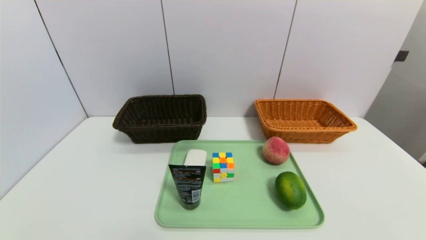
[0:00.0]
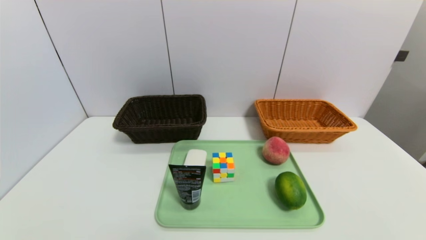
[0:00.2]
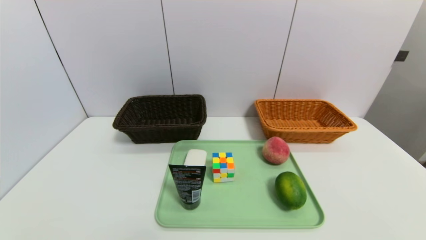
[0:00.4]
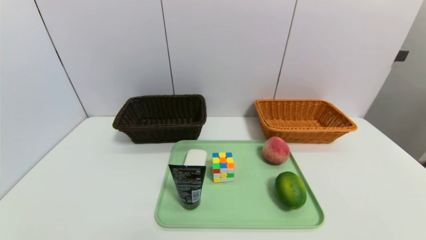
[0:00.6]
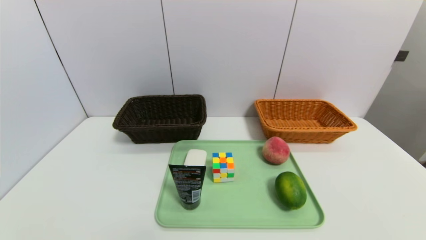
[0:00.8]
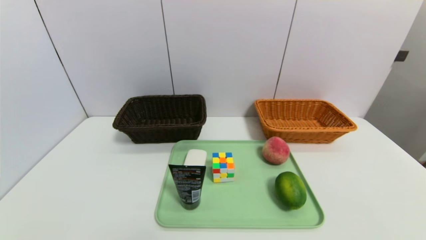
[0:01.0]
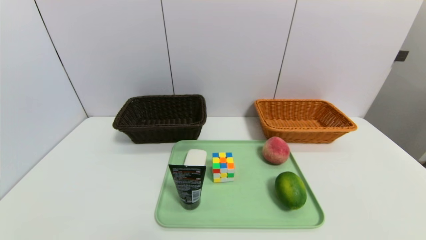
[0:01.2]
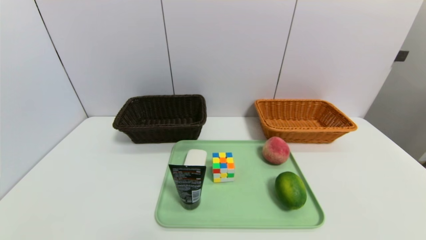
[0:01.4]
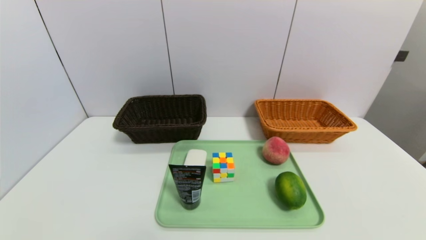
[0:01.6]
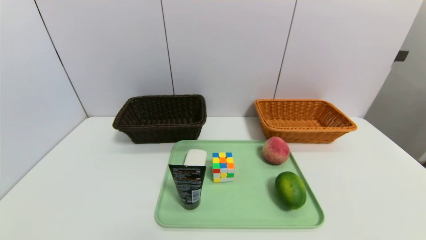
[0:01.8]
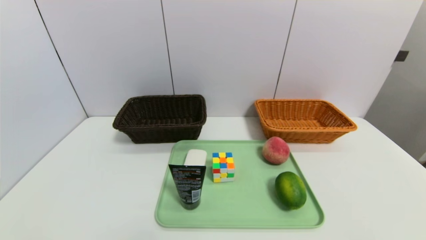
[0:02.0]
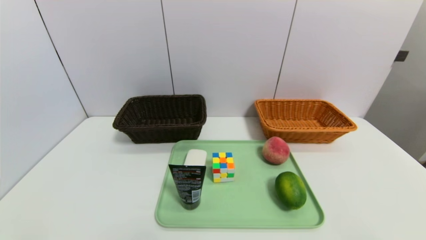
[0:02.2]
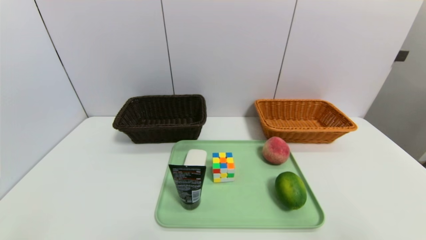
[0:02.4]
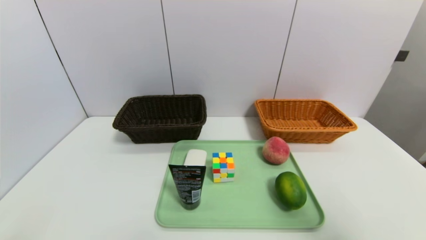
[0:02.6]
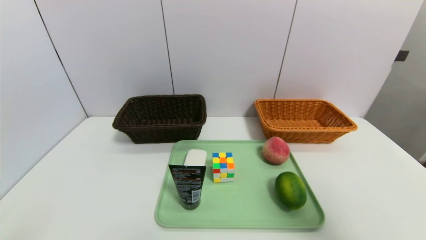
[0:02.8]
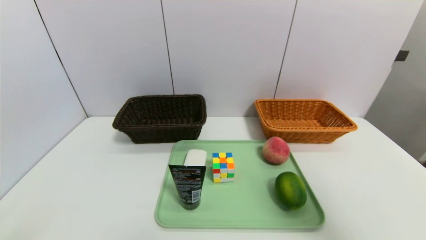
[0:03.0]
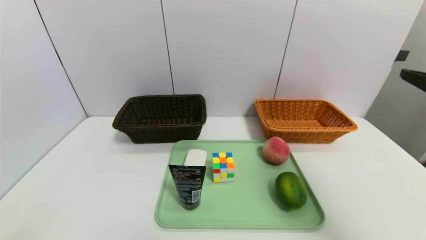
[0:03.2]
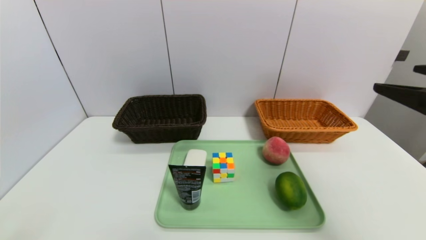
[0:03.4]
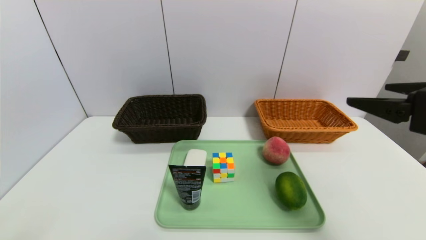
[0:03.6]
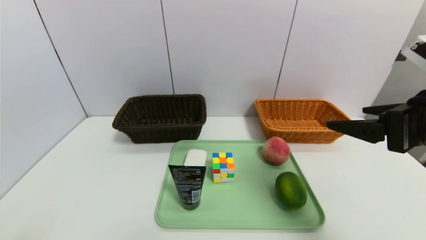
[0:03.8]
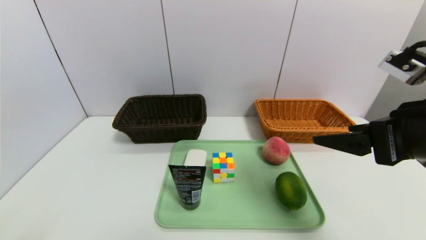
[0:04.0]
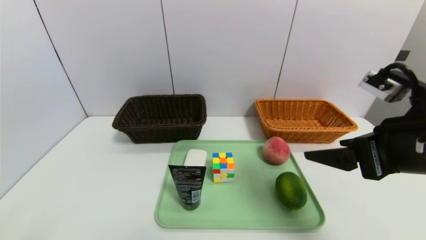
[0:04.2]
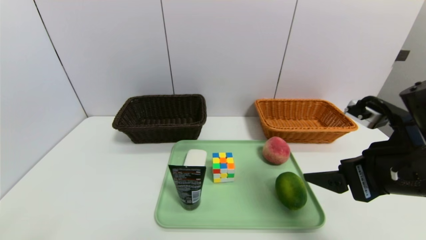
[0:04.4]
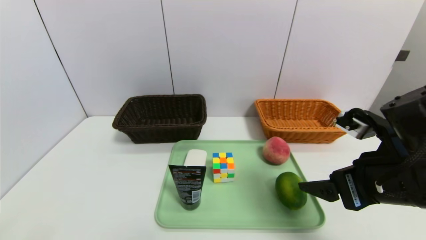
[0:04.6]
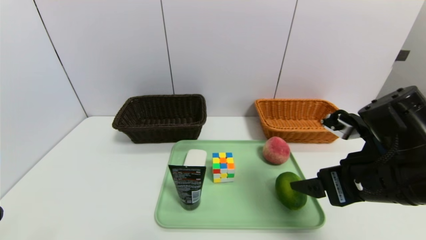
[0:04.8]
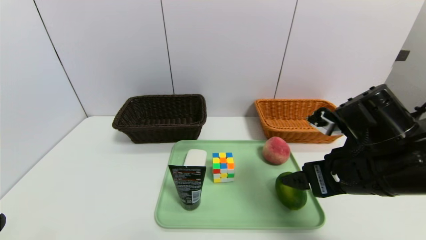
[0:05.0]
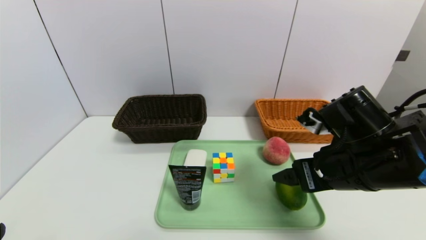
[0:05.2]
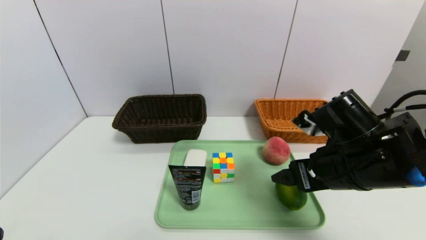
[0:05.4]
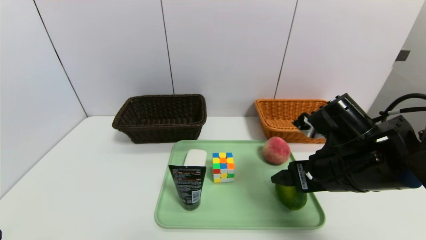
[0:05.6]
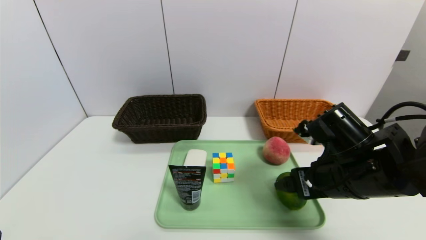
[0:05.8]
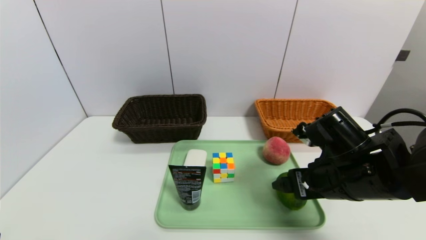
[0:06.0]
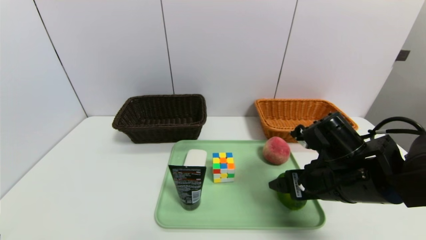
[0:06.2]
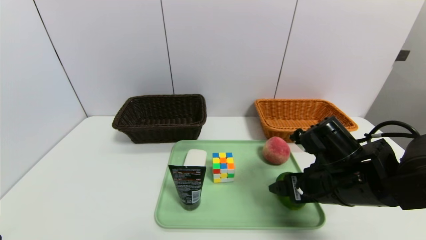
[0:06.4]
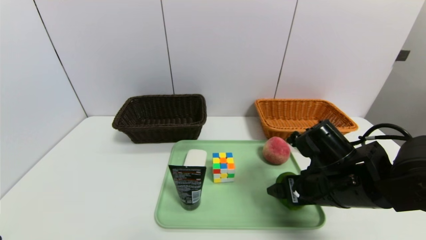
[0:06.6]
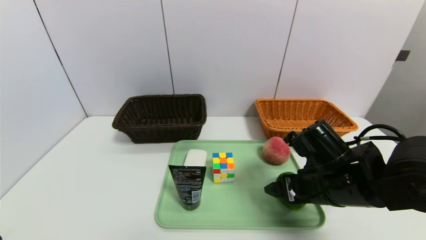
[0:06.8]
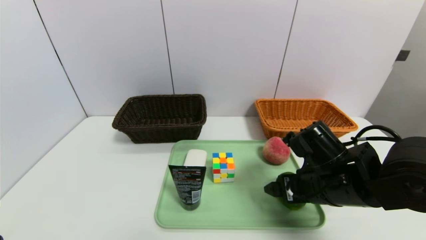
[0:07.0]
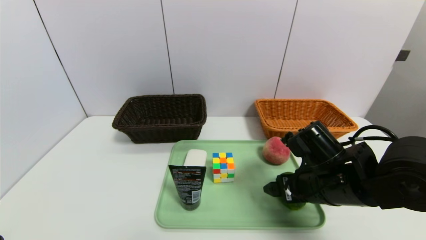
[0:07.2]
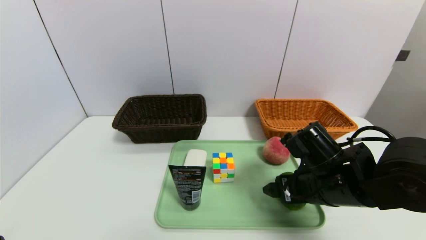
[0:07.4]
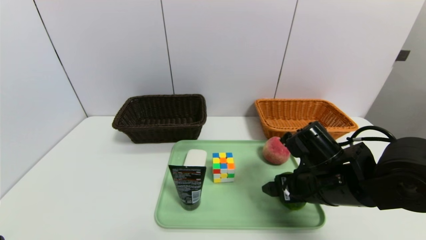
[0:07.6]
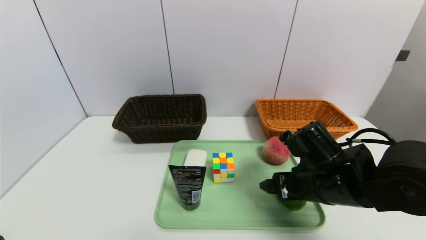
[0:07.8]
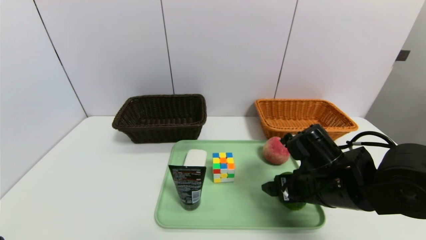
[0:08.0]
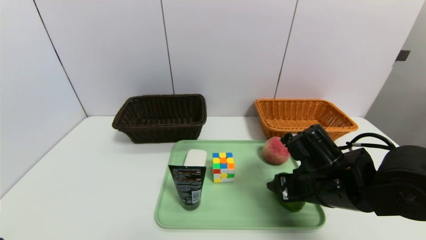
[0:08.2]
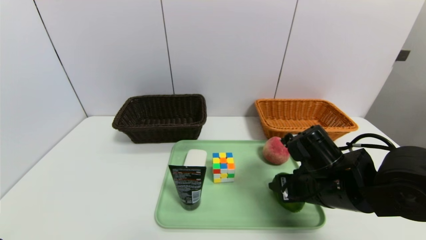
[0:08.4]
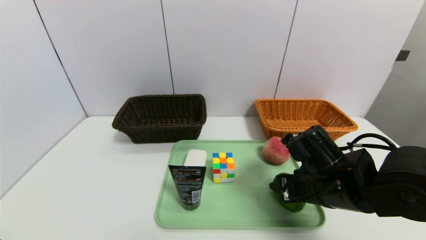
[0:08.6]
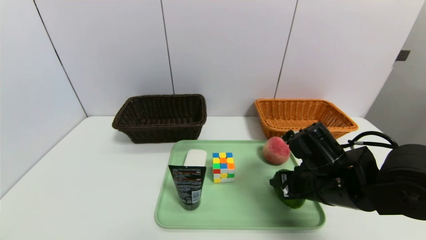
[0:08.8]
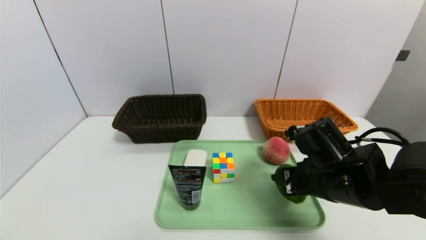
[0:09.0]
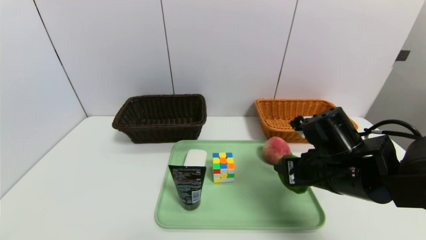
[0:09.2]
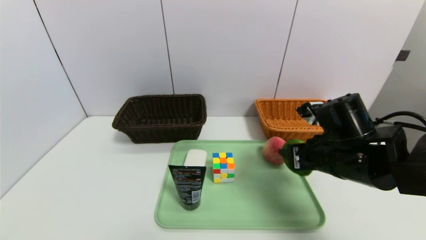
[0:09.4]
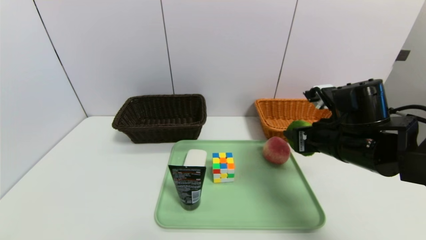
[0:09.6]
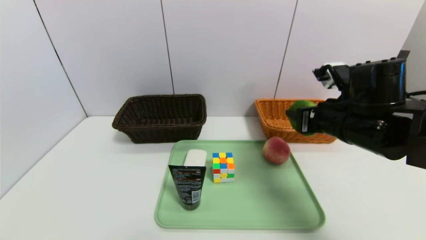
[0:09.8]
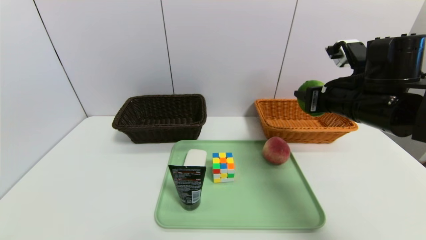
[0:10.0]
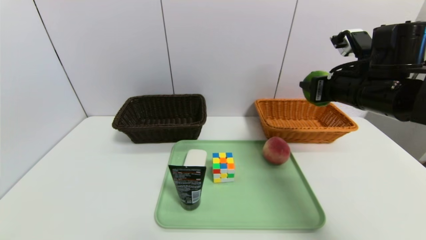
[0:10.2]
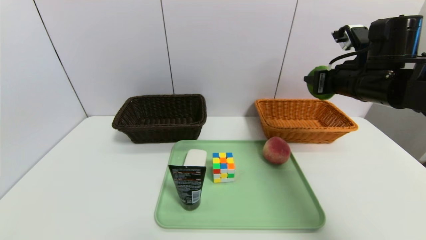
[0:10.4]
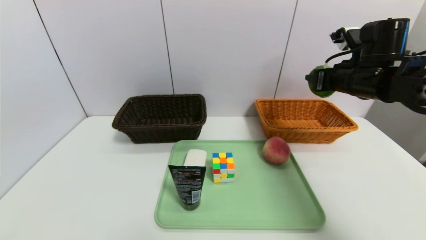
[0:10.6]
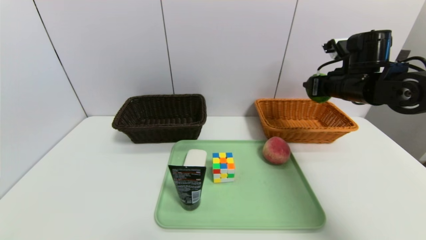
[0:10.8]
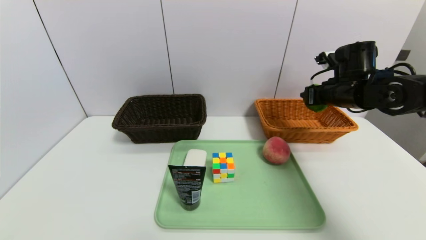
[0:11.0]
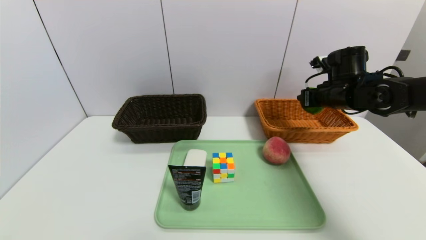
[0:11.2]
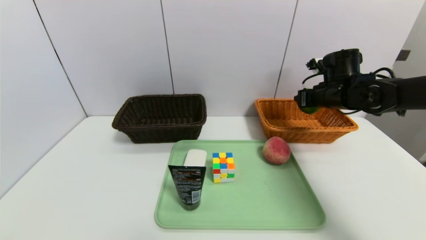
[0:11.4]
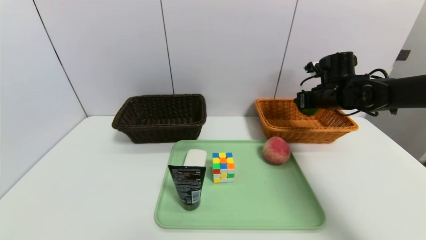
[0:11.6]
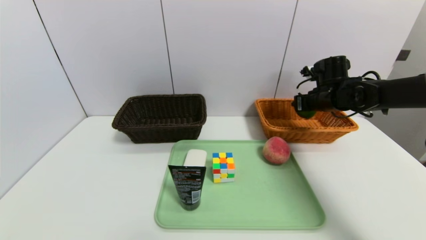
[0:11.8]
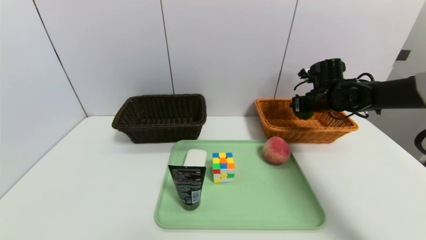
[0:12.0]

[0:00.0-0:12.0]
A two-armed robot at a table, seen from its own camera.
Task of the whole recording: place the food in the right basket with the right gripper, and place the non food items in the left basket with the left gripper.
0:01.6 to 0:03.0: The right gripper moves upward and forward, about 25 cm.
0:03.0 to 0:04.4: The right gripper shifts some 15 cm to the left, downward and forward.
0:04.4 to 0:06.0: The right gripper is displaced downward by about 5 cm.
0:06.0 to 0:07.6: The grippers stay close to where they were, moving slightly.
0:07.6 to 0:09.0: The right gripper closes up.
0:09.0 to 0:10.4: The right gripper moves upward, forward and to the right, some 15 cm.
0:10.4 to 0:12.0: The right gripper goes about 15 cm forward and downward.

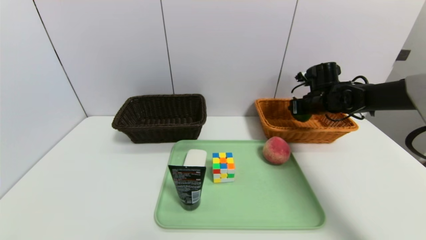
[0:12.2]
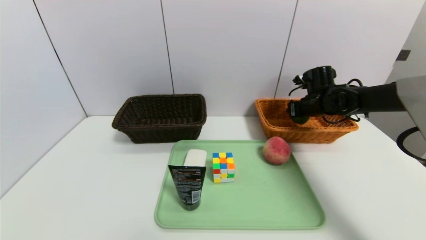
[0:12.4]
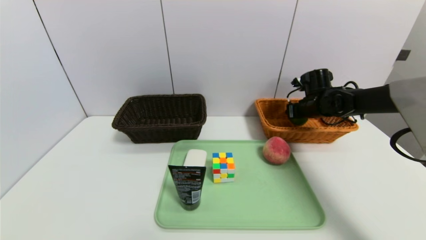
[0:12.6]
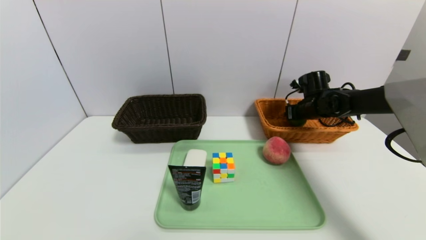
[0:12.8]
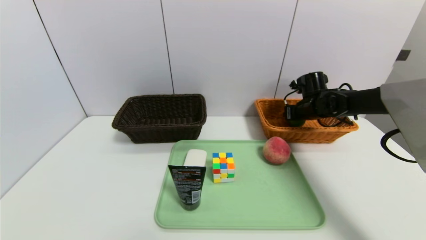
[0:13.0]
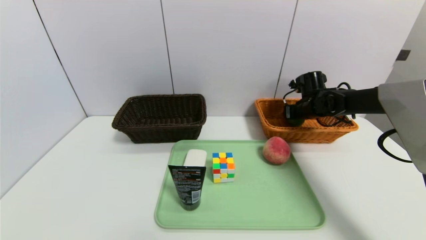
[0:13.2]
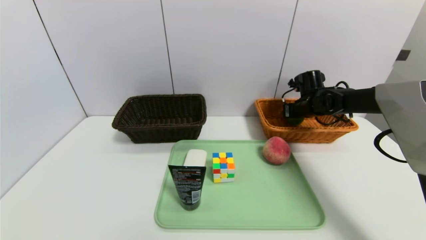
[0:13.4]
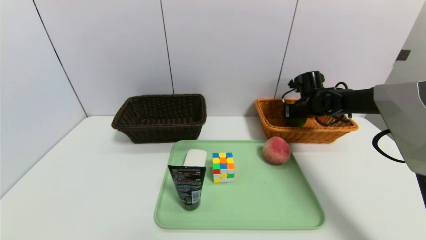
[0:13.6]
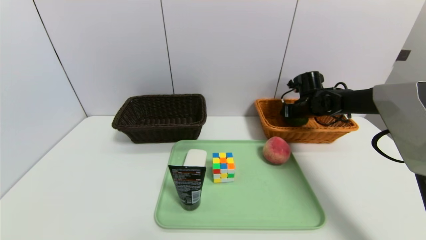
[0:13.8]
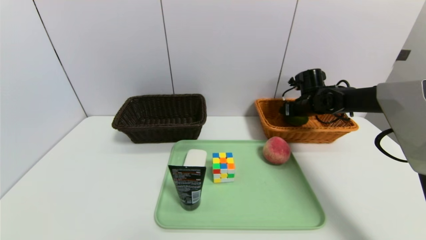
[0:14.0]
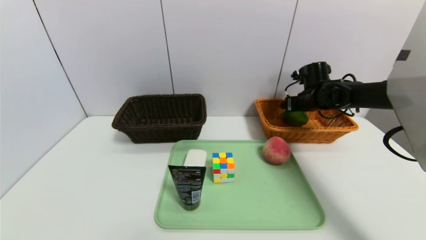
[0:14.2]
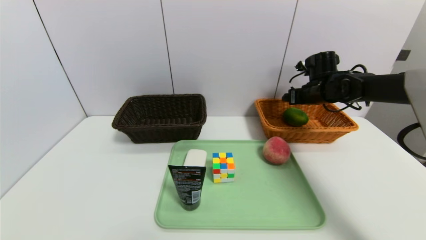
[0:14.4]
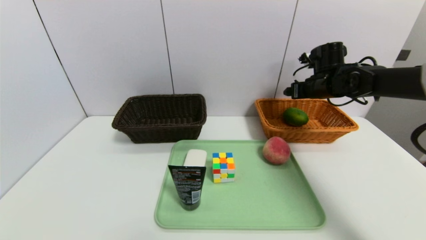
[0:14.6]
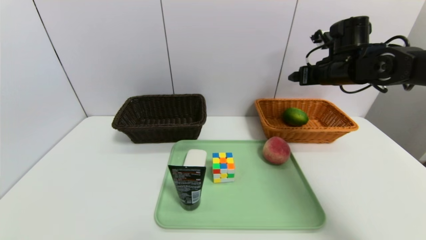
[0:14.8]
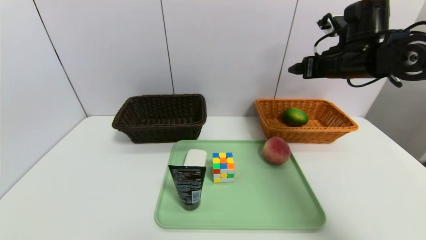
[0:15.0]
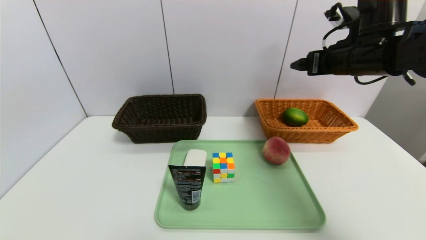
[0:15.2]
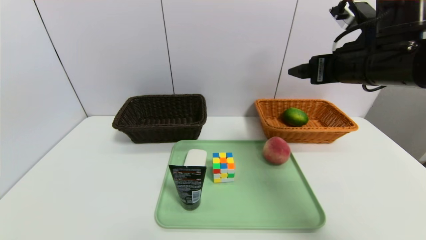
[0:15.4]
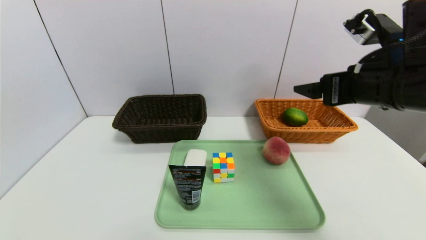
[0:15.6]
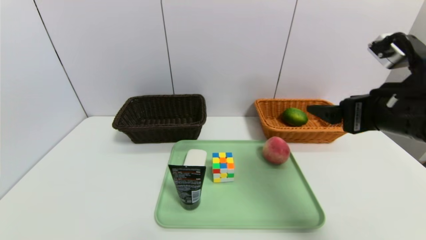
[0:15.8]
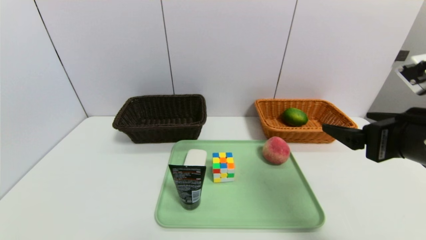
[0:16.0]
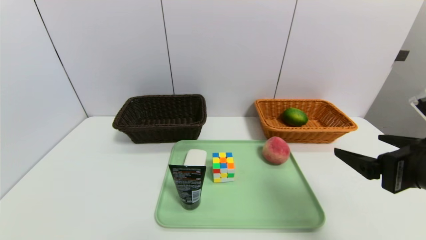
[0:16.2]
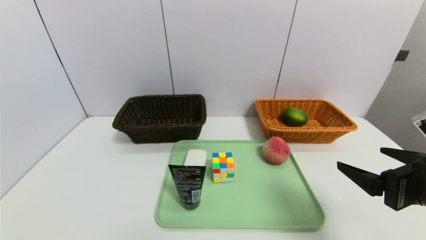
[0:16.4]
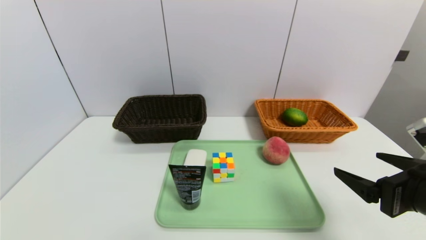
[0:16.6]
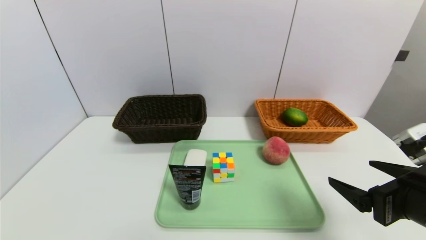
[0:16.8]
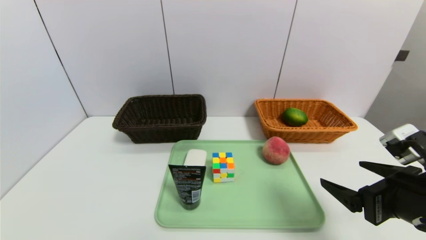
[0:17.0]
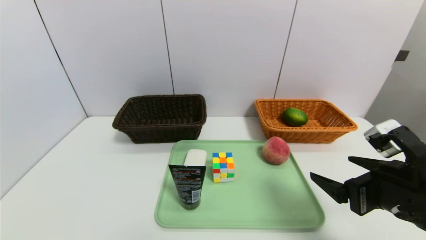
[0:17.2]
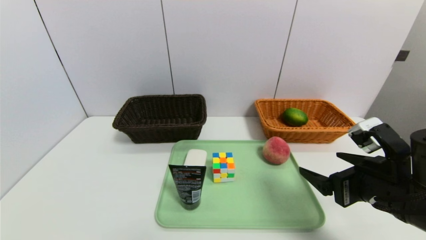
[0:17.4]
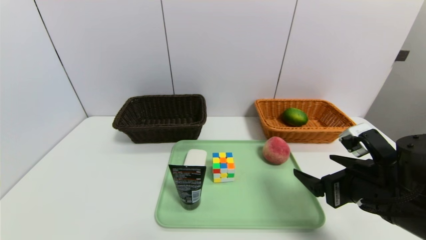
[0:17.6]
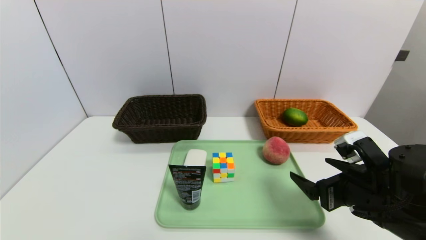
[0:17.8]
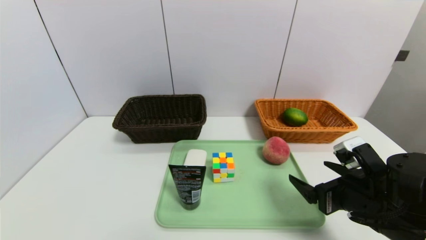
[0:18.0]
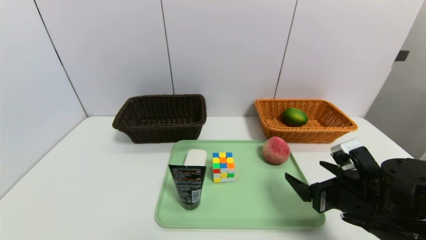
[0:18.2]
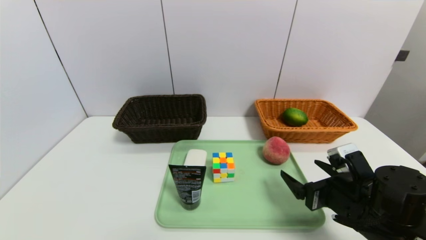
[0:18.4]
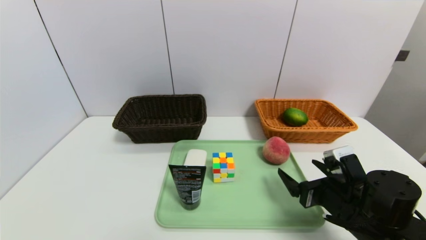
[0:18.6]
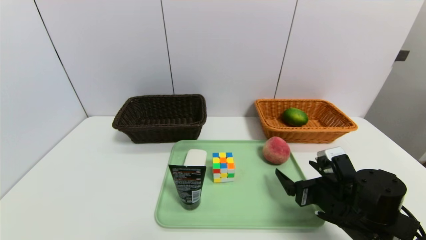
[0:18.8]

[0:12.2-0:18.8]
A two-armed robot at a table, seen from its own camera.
Task of the whole recording: place the food in the right basket with the right gripper, and place the non food items in the left basket with the left gripper.
Step, 0:12.2 to 0:14.4: Grasp the lime and put it in the right basket.
0:12.2 to 0:13.8: The right gripper opens.
0:13.8 to 0:15.4: The right gripper shifts roughly 25 cm backward and upward, and opens its fingers.
0:15.4 to 0:17.2: The right gripper travels downward and backward by some 20 cm.
0:17.2 to 0:18.8: The right gripper goes roughly 10 cm downward and forward.
